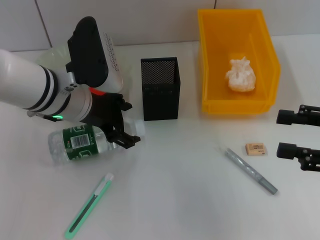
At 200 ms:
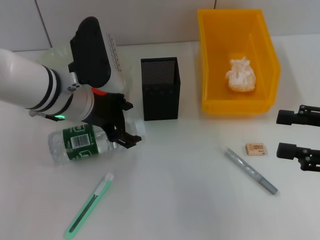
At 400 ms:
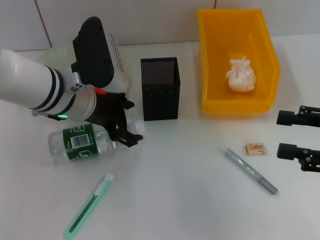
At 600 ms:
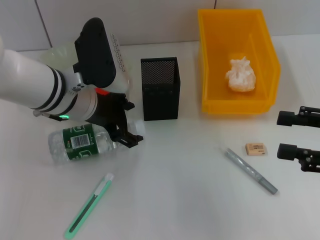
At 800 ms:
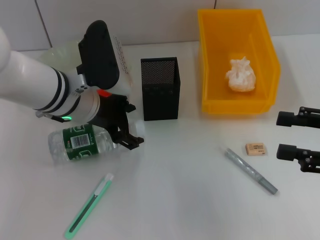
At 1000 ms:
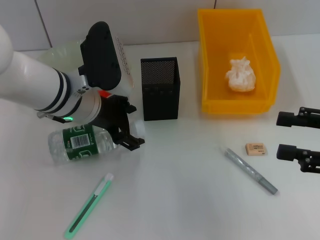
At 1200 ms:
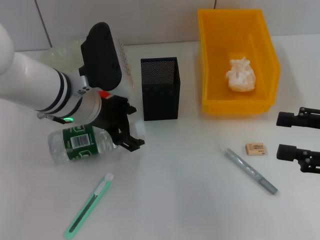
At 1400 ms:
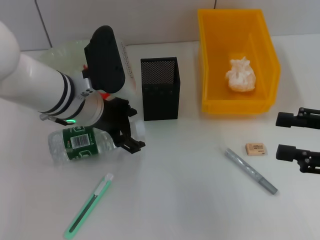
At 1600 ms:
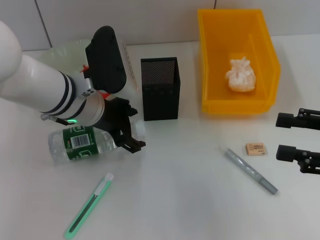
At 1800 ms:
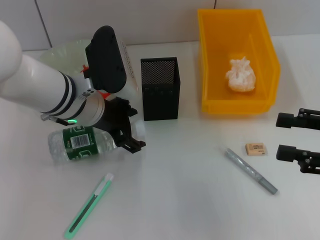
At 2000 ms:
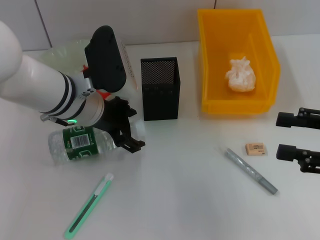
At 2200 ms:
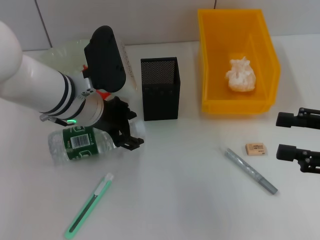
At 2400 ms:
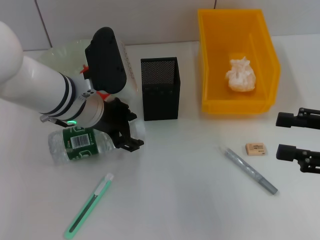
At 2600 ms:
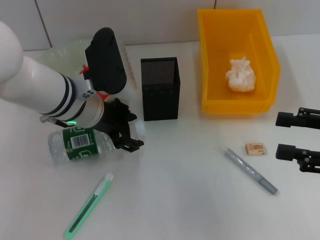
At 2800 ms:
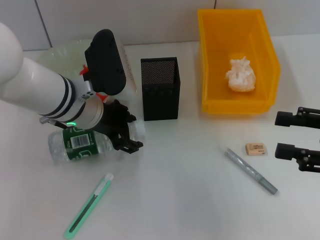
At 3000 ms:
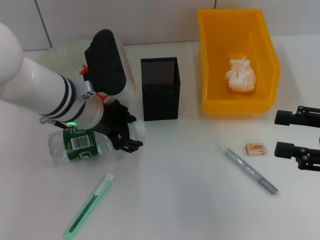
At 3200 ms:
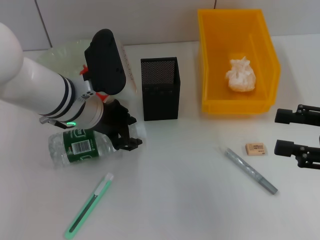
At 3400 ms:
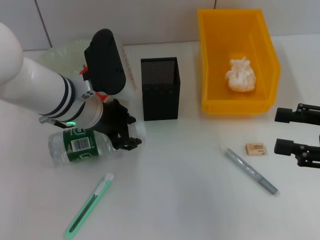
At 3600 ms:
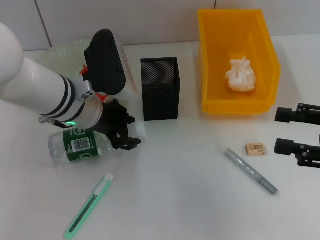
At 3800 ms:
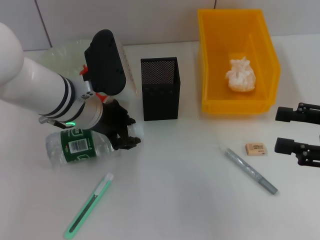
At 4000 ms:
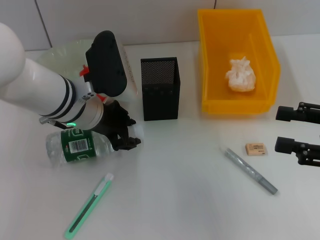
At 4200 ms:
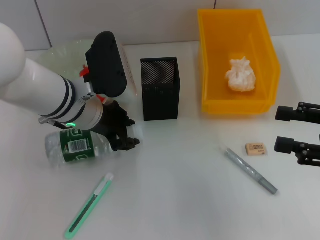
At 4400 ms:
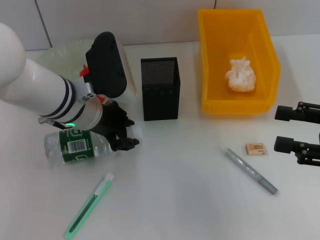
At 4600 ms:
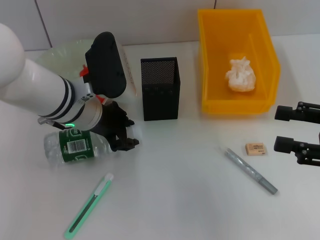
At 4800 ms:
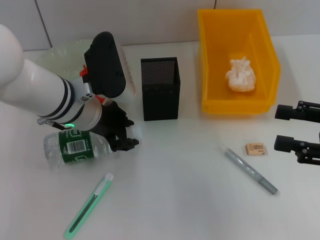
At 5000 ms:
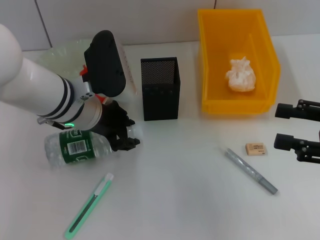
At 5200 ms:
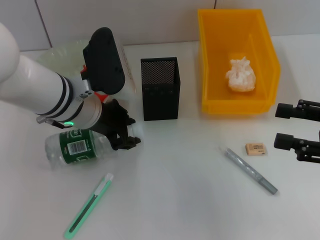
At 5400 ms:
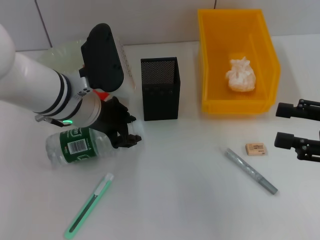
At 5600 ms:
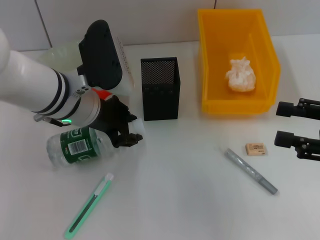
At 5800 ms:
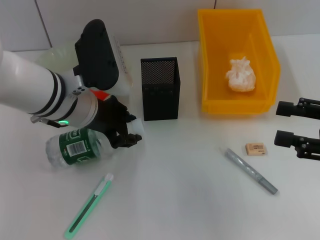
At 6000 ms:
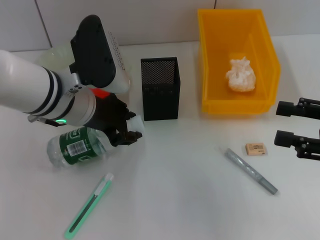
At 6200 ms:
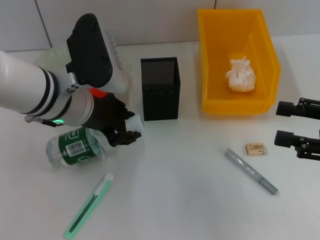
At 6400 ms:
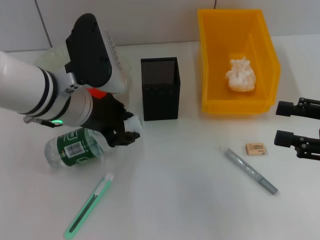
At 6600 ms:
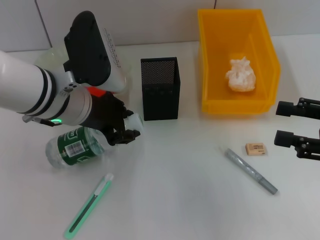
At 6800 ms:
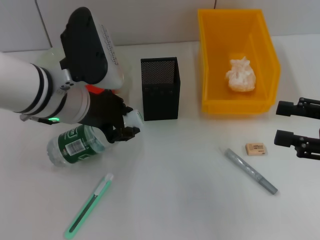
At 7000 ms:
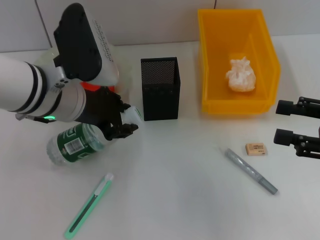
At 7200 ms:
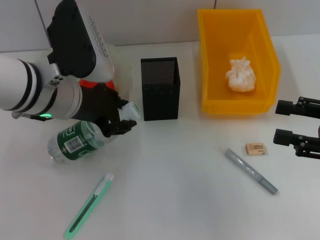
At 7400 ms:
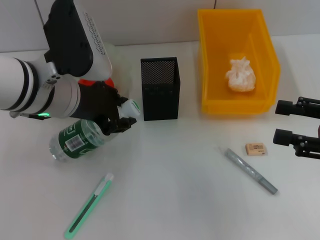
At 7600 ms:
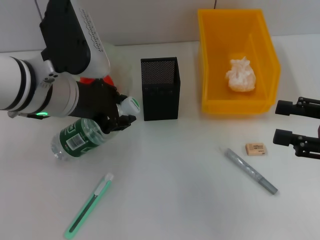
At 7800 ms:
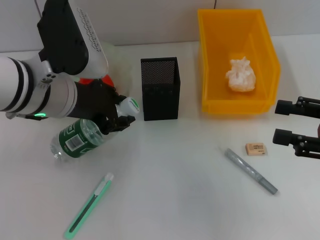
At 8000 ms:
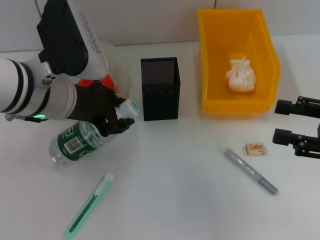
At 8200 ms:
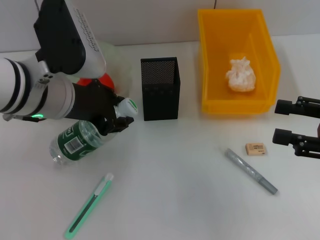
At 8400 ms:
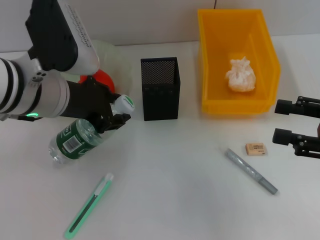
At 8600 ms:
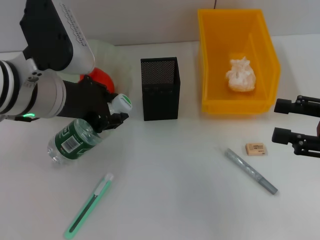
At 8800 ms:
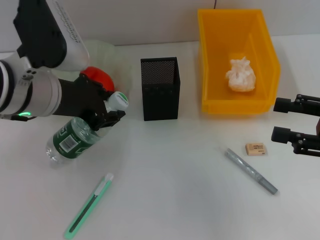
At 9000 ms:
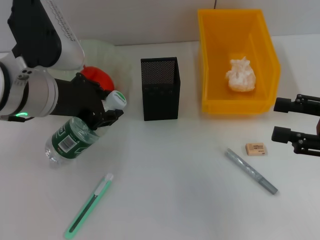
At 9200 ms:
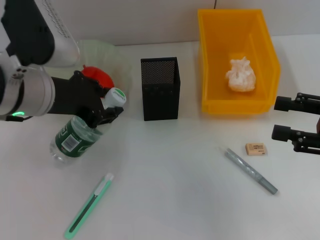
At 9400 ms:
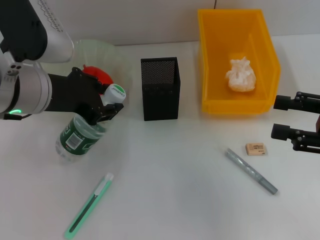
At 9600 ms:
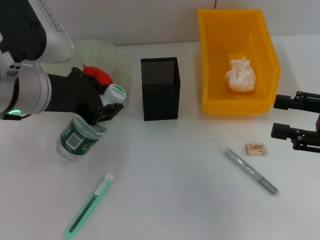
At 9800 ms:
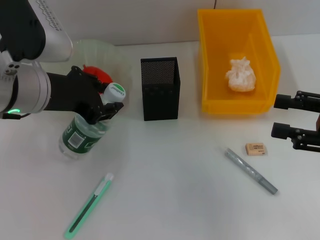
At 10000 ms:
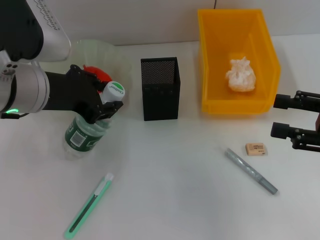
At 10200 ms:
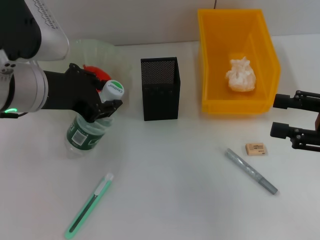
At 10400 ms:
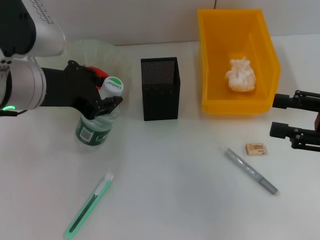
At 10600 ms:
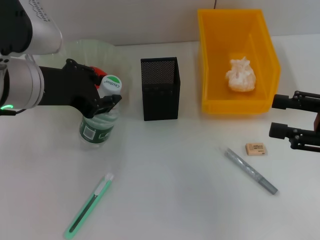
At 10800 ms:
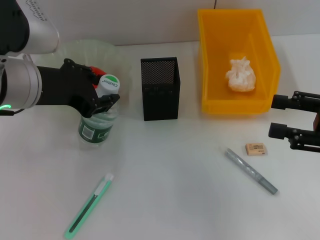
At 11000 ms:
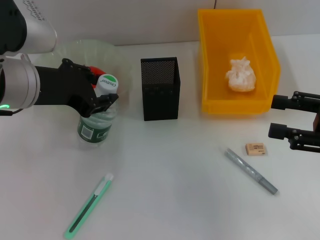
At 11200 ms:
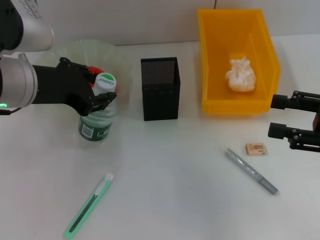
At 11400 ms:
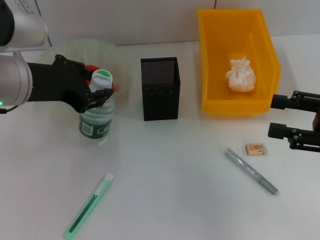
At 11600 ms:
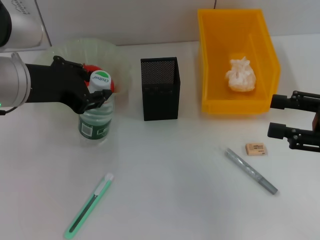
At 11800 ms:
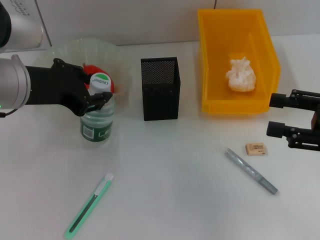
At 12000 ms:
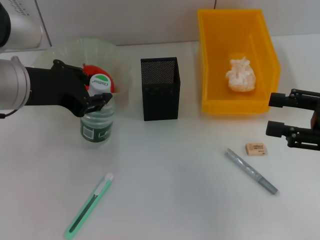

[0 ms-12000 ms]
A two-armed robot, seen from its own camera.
Step, 0 ms to 5200 ms: Grab the water bottle with the left hand.
0 ms to 1600 ms: The grippers stay close to where they were, moving slightly.
1600 ms to 4400 ms: The two grippers keep their place.
4400 ms to 6000 ms: The grippers make only small movements.
6000 ms to 9000 ms: The grippers make only small movements.
9000 ms to 12000 ms: The grippers make only small movements.

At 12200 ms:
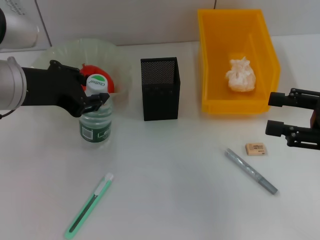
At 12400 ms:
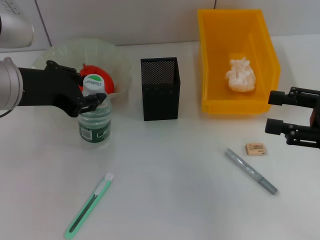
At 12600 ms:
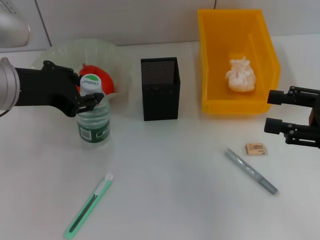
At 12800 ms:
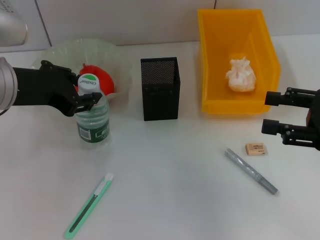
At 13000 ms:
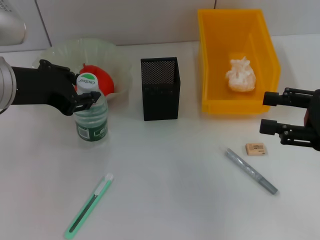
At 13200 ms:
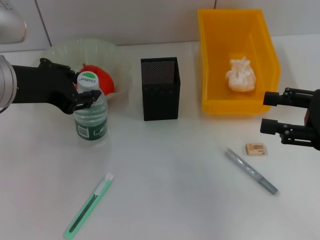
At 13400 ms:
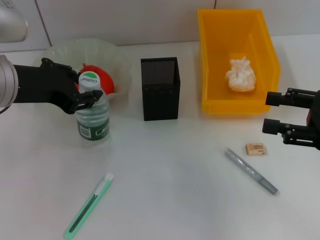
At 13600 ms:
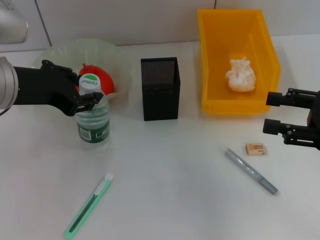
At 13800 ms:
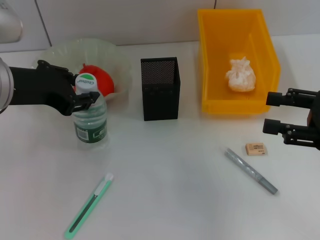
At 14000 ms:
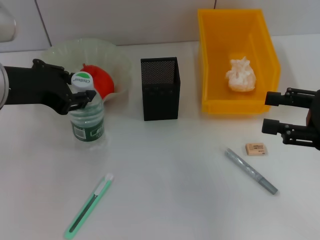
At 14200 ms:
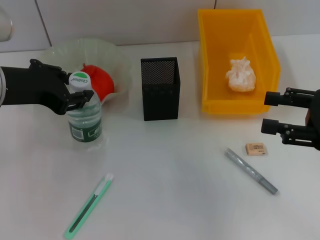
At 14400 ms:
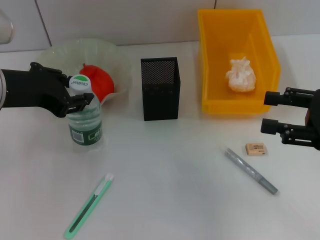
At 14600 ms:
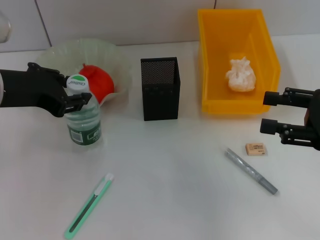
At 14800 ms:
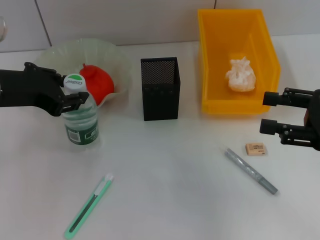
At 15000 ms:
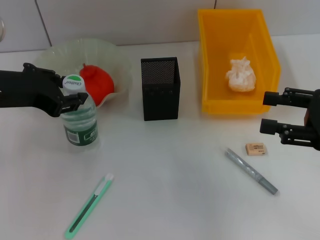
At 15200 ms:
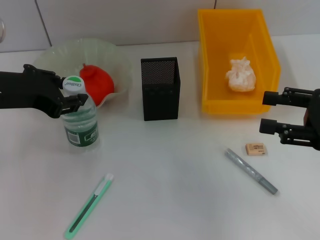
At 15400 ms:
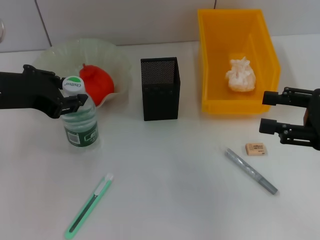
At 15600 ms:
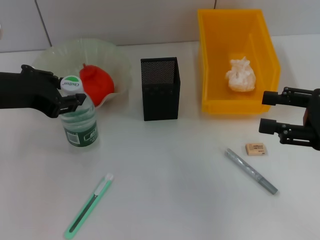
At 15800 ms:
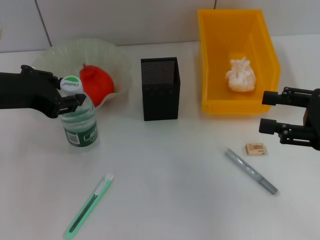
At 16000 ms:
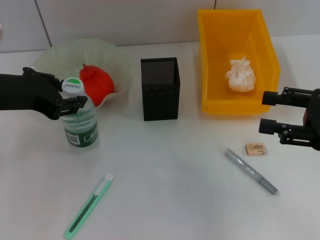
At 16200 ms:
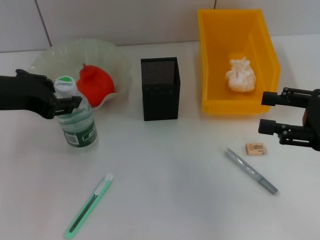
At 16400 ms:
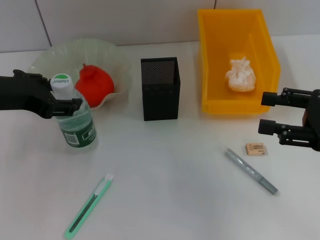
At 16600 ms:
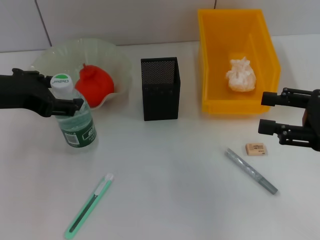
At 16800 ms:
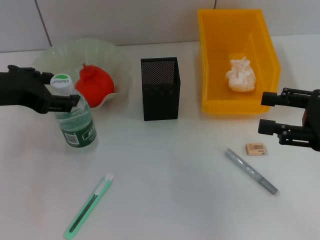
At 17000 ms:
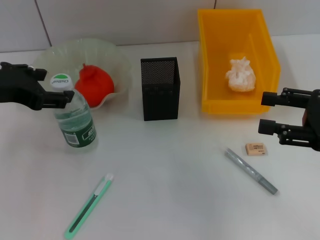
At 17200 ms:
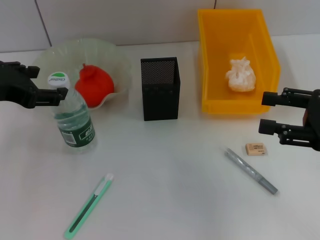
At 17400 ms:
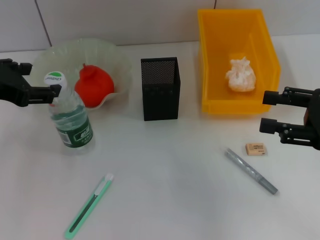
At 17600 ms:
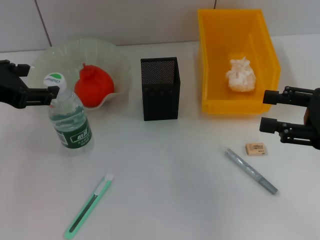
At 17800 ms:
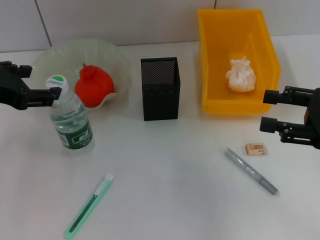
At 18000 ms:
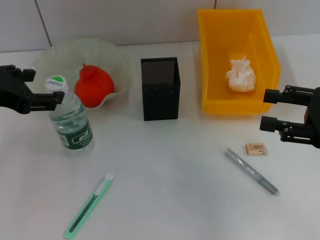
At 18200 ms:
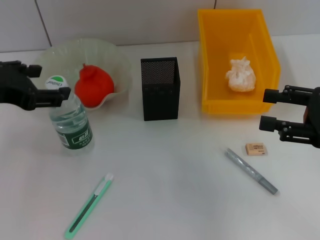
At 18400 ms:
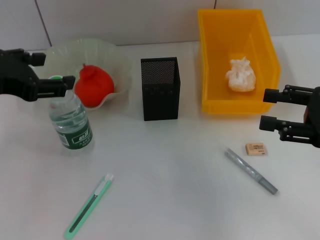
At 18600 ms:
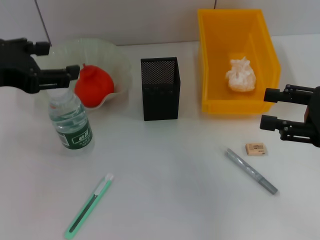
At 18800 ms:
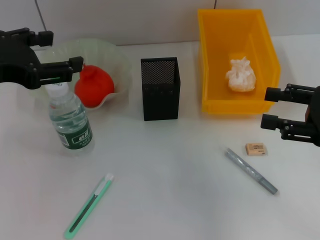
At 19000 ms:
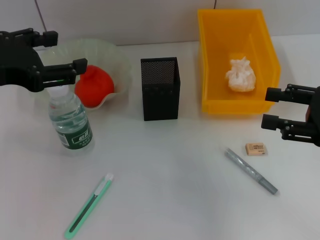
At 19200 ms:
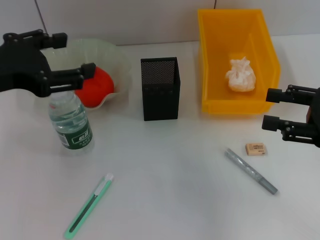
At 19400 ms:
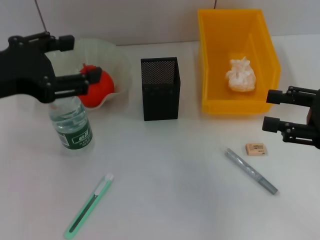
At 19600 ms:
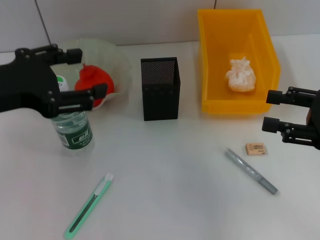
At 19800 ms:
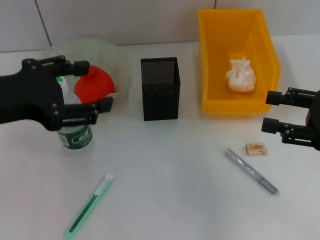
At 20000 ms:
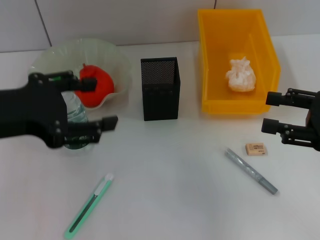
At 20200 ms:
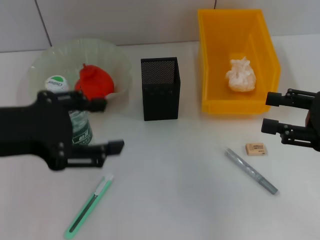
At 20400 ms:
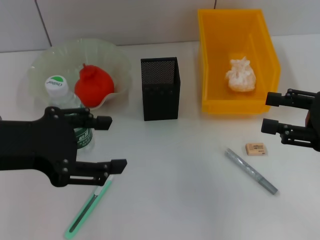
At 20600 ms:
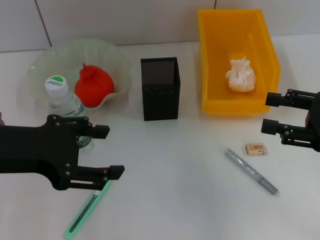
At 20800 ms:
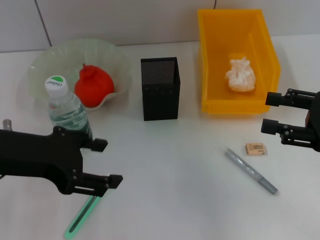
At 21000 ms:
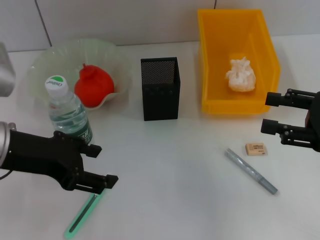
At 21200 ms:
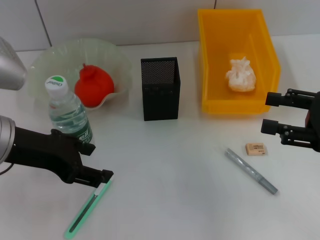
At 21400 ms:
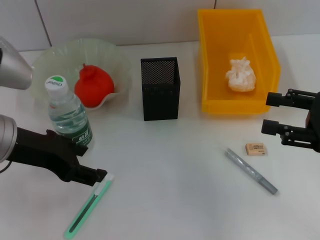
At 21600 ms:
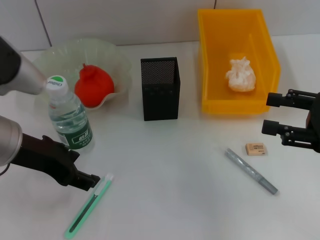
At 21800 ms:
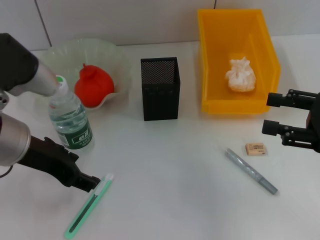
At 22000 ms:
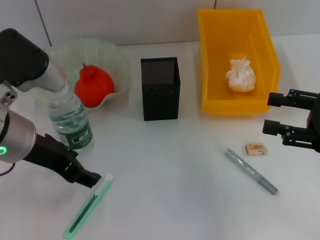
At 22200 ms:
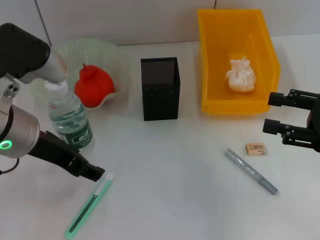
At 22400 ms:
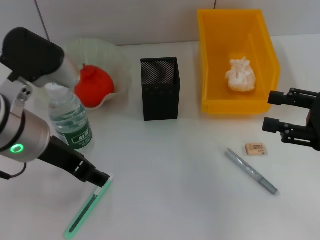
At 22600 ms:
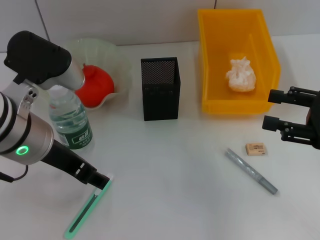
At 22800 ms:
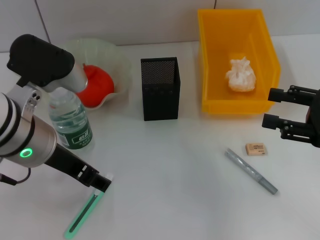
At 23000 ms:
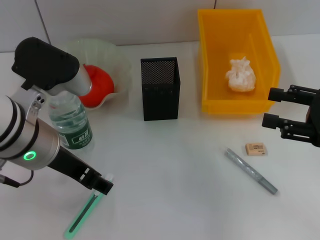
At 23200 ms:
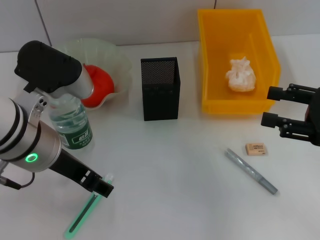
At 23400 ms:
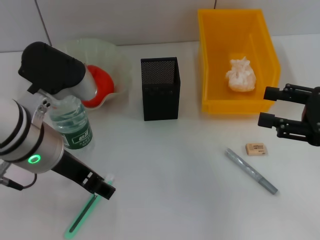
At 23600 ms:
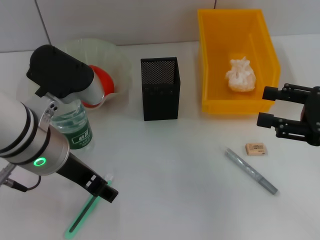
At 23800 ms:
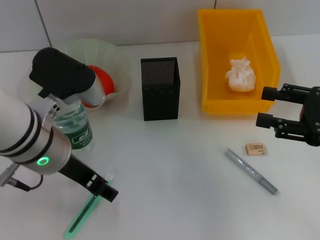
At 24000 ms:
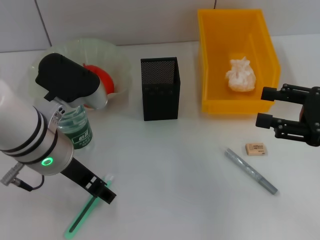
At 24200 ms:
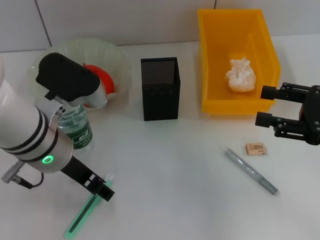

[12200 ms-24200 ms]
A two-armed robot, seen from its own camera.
Step, 12200 ms to 16400 ms: Place the water bottle on the table with the left hand.
12200 ms to 15200 ms: The grippers make only small movements.
15200 ms to 16600 ms: The left gripper opens up.
16600 ms to 18200 ms: The grippers make only small movements.
19800 ms to 21200 ms: The left gripper changes place by roughly 5 cm.
21200 ms to 22600 ms: The left gripper moves to the right, about 5 cm.
22600 ms to 24200 ms: There are only small adjustments of the grippers.
